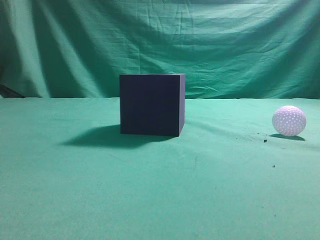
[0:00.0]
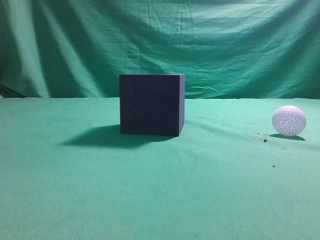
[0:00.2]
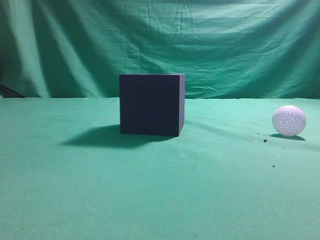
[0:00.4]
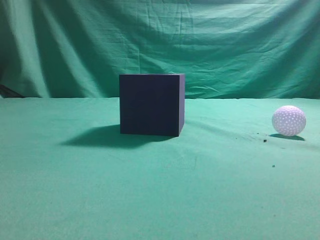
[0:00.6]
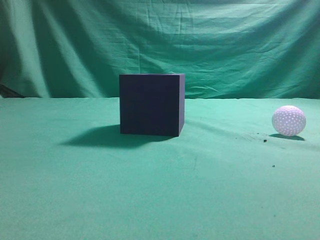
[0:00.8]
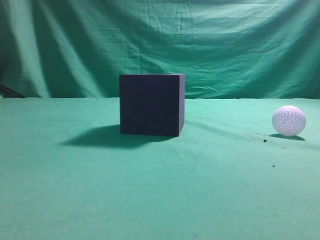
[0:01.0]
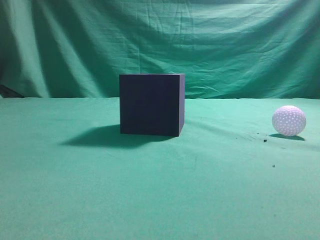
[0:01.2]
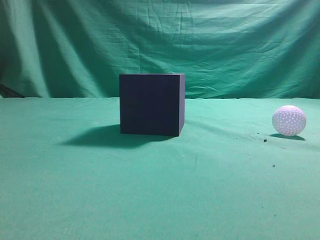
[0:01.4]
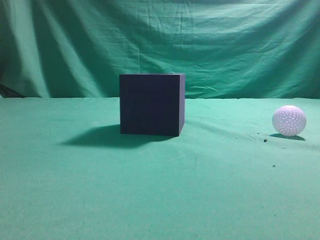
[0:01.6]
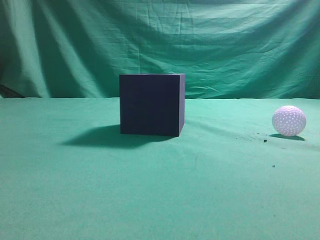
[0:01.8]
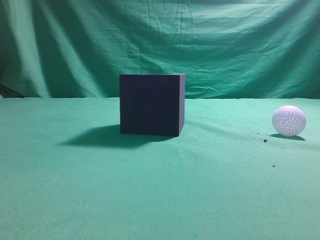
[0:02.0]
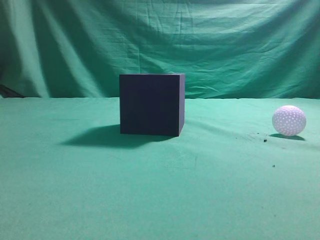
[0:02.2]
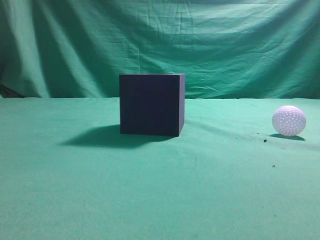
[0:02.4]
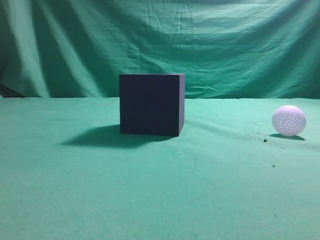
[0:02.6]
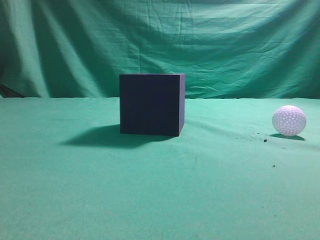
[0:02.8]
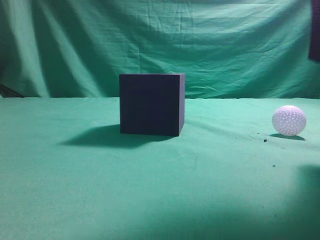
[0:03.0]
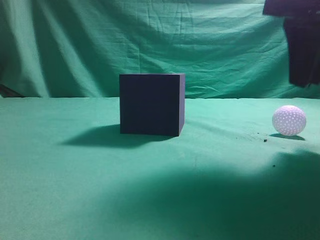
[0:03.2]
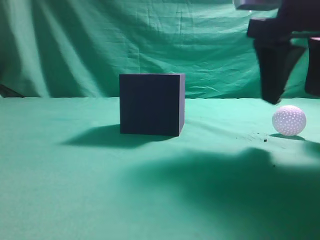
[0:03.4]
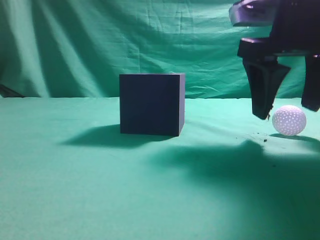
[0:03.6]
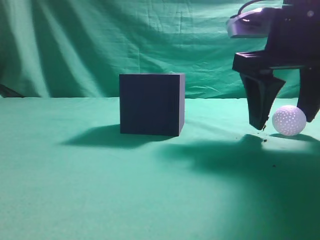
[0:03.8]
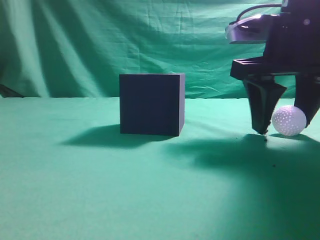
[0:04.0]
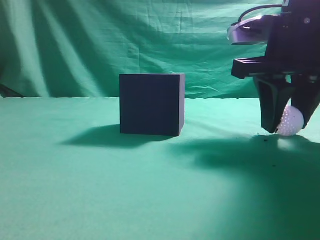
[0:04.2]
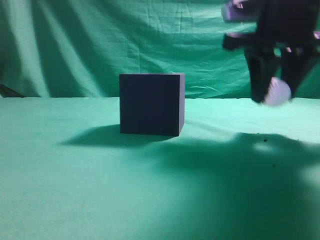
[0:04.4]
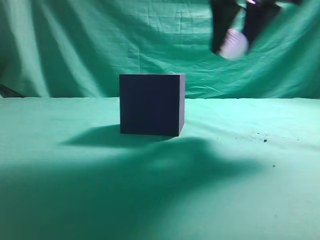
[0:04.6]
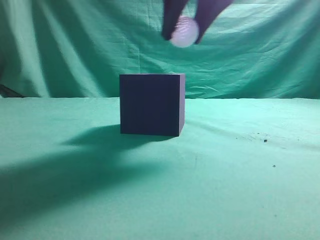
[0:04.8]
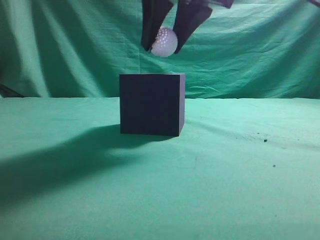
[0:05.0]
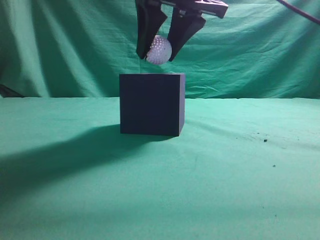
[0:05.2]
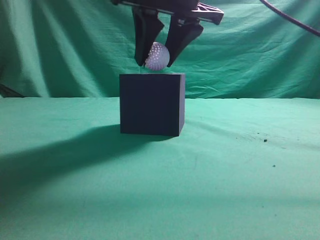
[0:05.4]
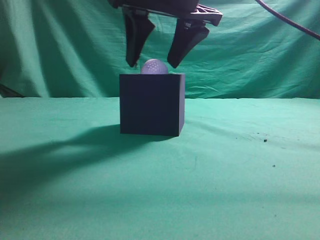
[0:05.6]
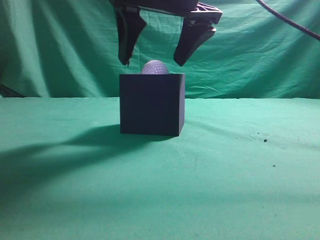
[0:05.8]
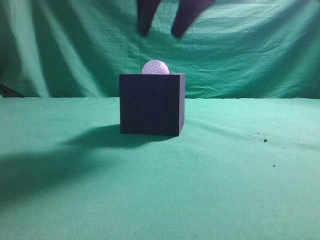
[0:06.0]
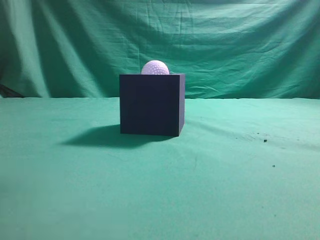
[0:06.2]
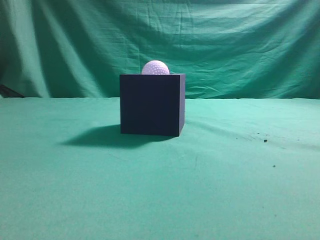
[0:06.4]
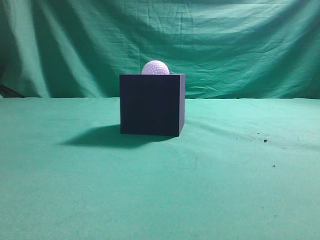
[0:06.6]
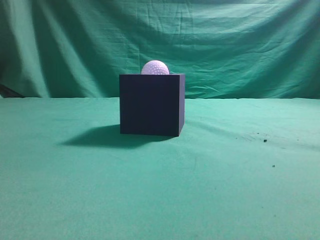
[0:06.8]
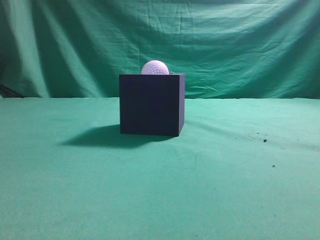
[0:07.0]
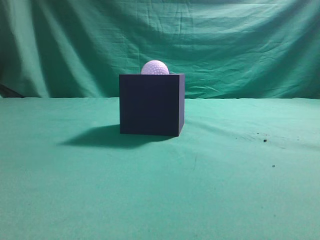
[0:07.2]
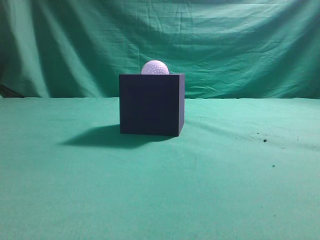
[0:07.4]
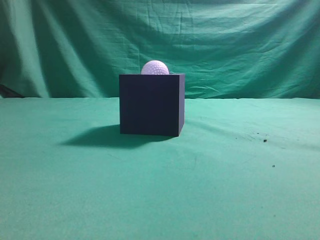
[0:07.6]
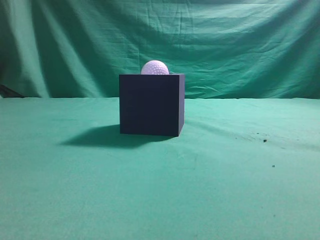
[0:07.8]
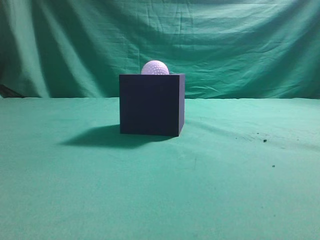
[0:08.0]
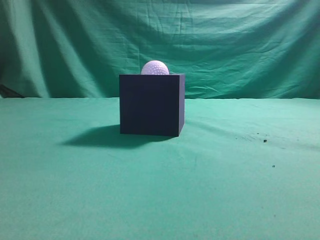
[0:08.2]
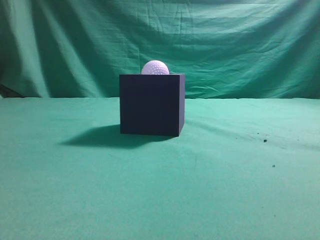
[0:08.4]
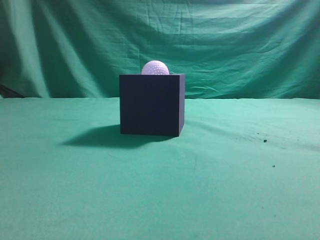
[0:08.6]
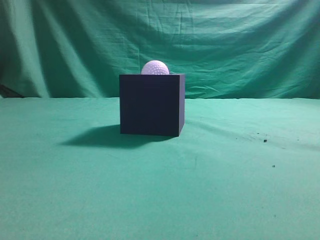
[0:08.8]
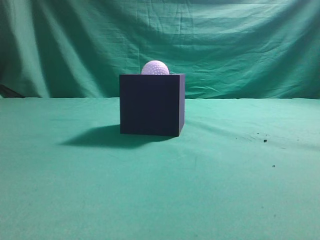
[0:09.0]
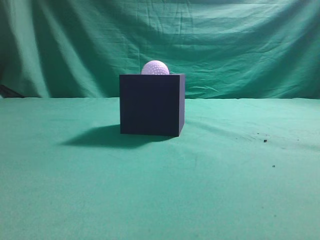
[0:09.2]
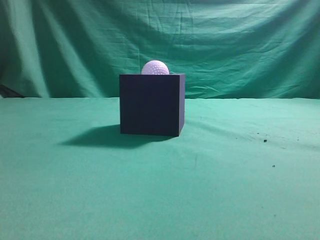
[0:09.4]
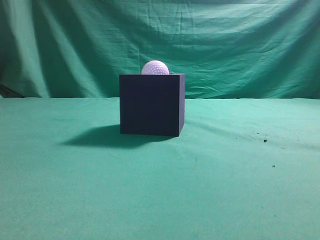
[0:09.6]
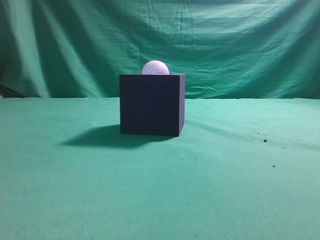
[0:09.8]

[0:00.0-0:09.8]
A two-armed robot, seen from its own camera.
Task of the whole recording: Pick up the ball and place it in the circular groove above the cube.
Step, 0:00.0 to 0:04.4: Grasp the sphere on the table.
Step, 0:04.6 to 0:05.8: Place the sphere into the sphere-shaped recess.
0:02.8 to 0:04.2: The right gripper is displaced downward, forward and to the left by roughly 15 cm, and opens its fingers.
0:04.2 to 0:05.6: The right gripper moves to the left and upward, about 15 cm.
0:05.6 to 0:07.0: The right gripper travels backward, to the right and upward by some 30 cm, and closes.
